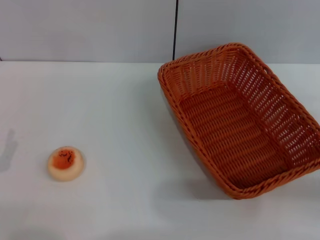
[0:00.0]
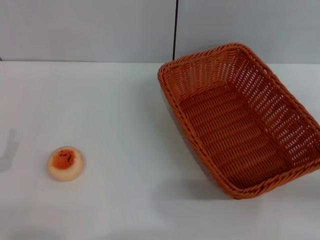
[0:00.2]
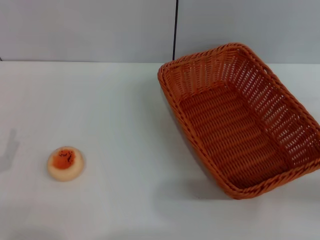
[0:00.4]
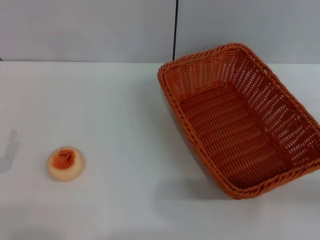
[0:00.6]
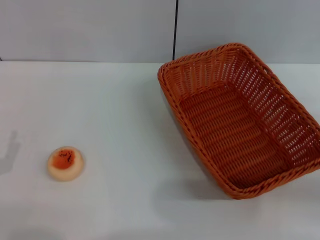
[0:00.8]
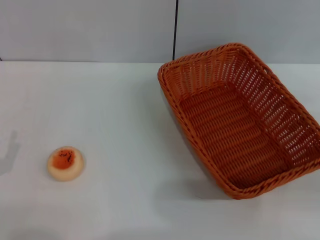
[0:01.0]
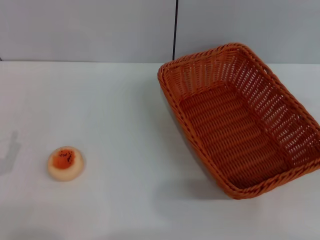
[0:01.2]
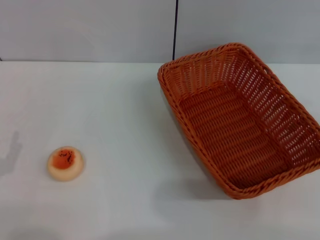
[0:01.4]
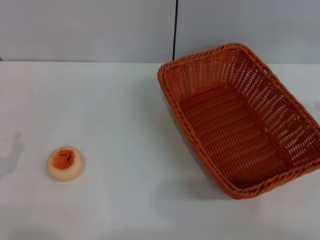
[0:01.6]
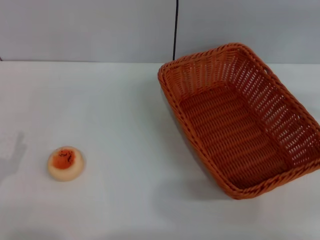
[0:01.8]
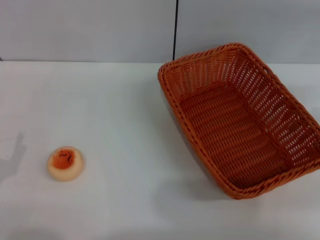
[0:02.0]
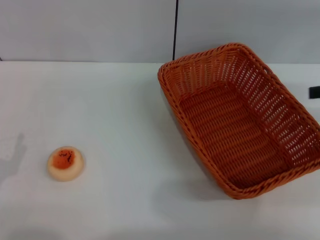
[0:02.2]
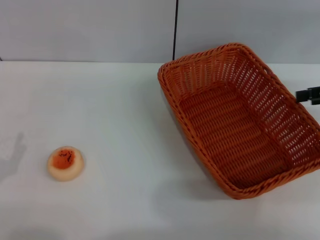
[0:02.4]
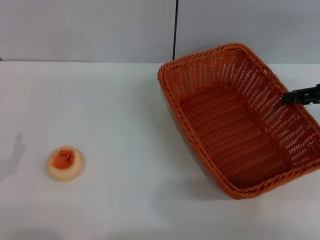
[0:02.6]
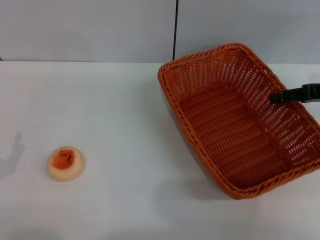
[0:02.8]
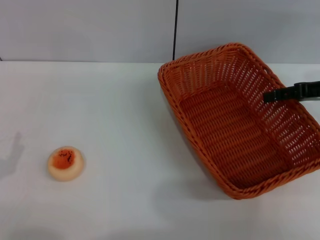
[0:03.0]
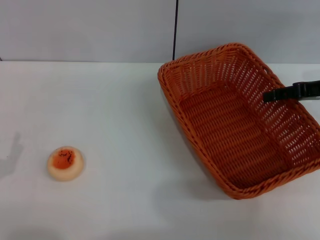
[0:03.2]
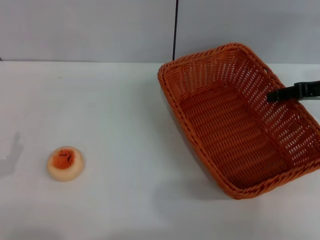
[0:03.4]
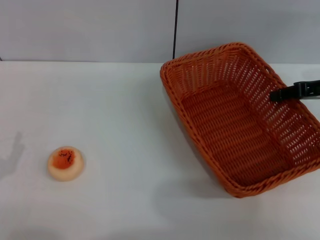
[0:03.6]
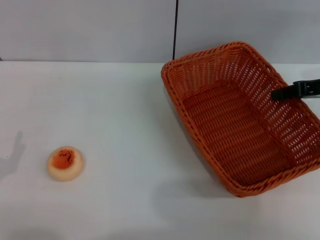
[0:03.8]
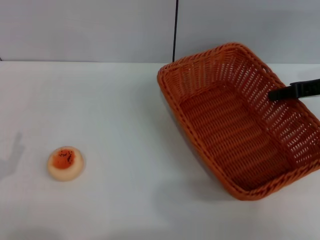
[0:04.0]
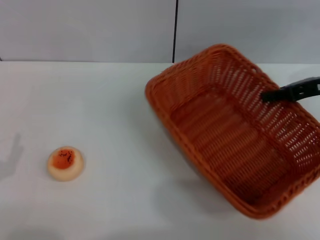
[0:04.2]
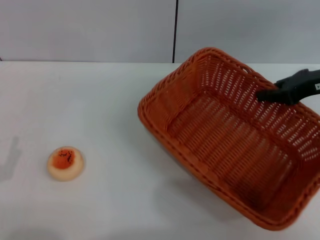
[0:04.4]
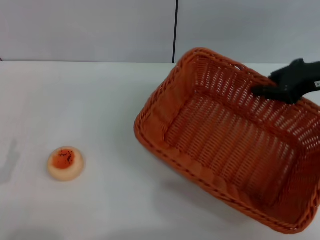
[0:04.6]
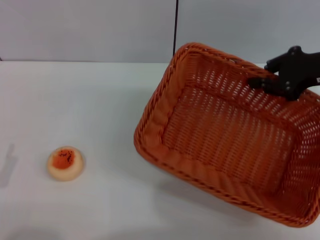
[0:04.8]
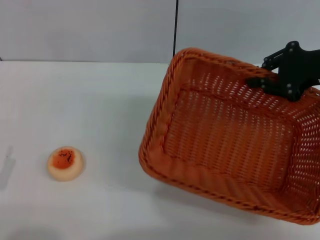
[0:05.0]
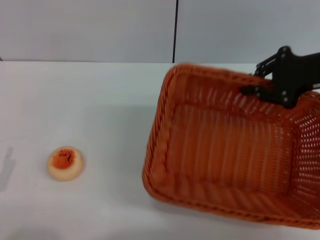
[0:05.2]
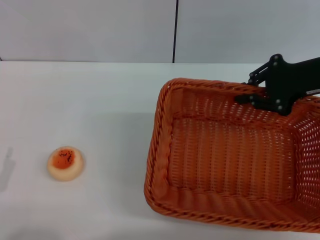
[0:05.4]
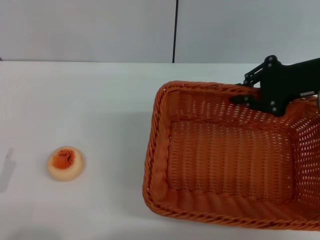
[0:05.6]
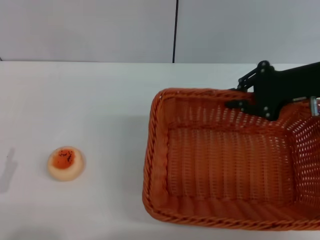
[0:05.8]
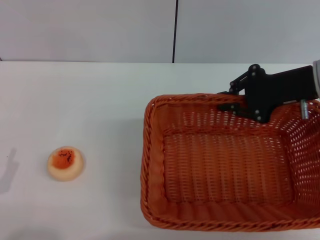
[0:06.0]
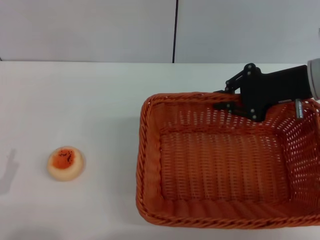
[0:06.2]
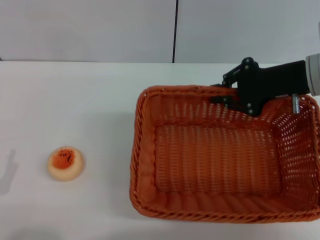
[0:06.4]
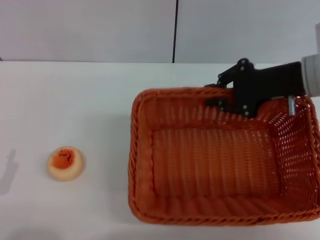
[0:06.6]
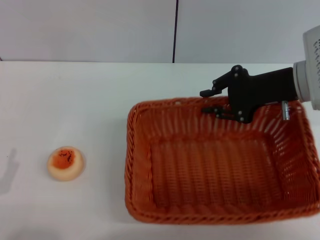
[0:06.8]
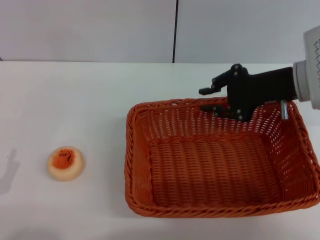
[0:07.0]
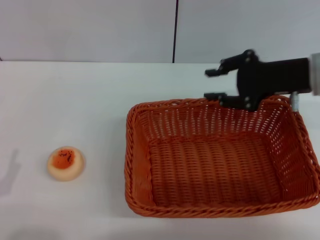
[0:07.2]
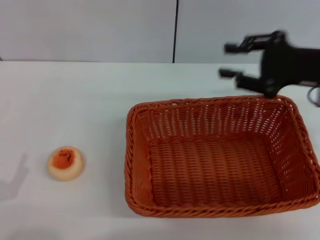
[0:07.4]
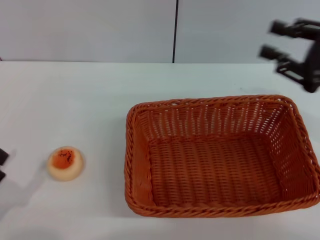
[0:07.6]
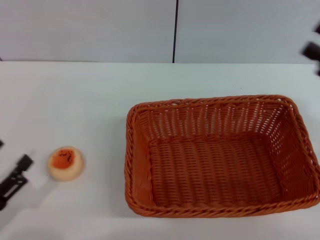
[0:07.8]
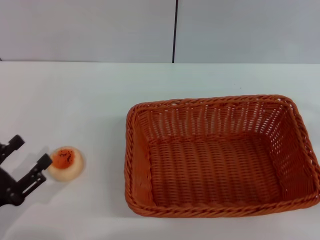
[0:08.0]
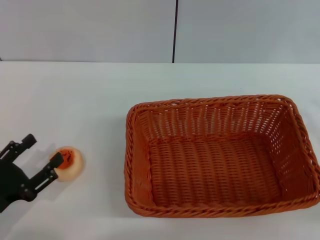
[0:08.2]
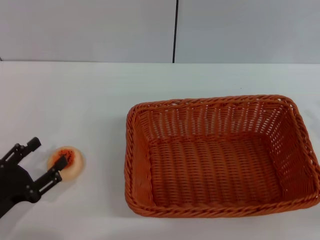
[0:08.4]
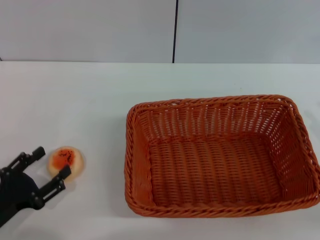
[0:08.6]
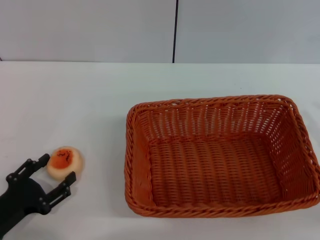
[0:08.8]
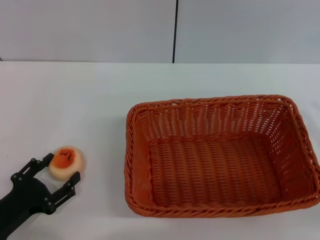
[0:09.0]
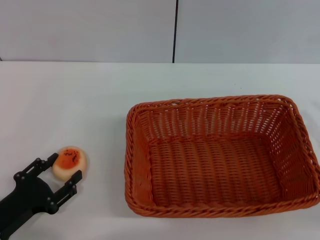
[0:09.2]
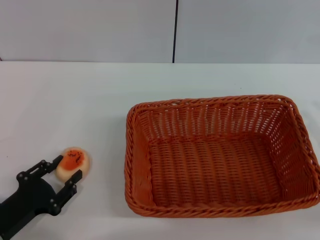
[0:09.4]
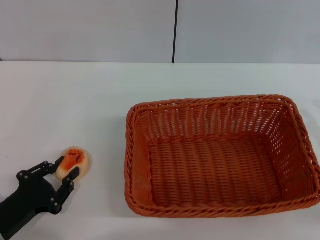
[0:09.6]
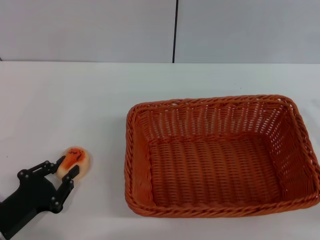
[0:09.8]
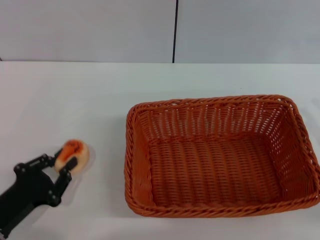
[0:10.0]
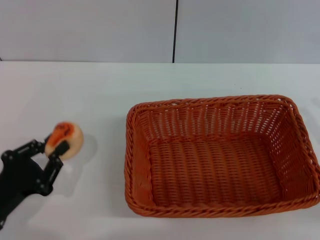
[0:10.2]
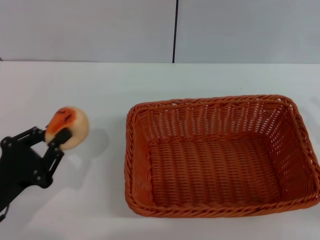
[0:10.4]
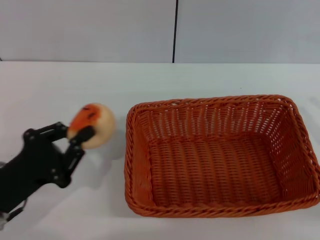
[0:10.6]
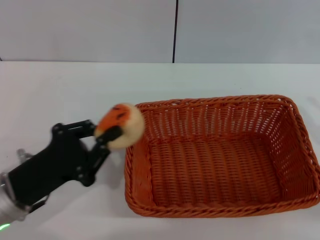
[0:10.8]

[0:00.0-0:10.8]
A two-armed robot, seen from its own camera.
Step, 0:00.0 to 0:07.2: Move the basket to the center of view with the right gripper.
Step, 0:07.4 to 0:10.2: Pick up the egg yolk pastry with the left gripper.
0:01.6 to 0:03.0: The right gripper heads to the left, forward and downward, covering about 15 cm.
0:03.0 to 0:04.6: The right gripper closes its fingers.
0:04.6 to 0:06.2: The right gripper shifts by about 5 cm.
0:06.2 to 0:07.8: The right gripper shifts about 15 cm backward and to the right.
0:07.8 to 0:09.2: The left gripper changes place by about 5 cm; the right gripper changes place by roughly 5 cm.
0:09.2 to 0:10.8: The left gripper moves upward, about 5 cm, and closes.

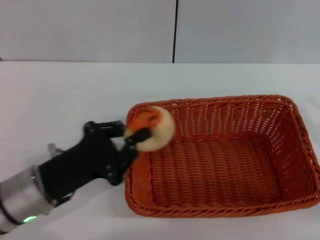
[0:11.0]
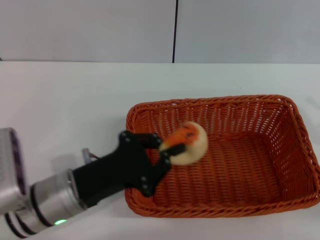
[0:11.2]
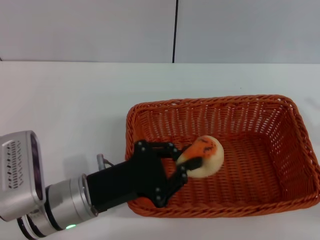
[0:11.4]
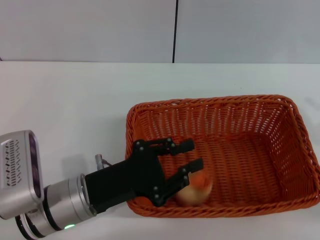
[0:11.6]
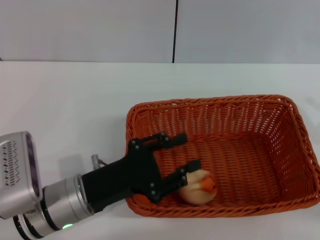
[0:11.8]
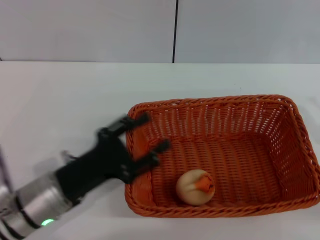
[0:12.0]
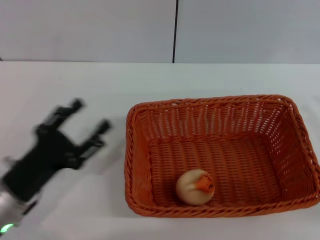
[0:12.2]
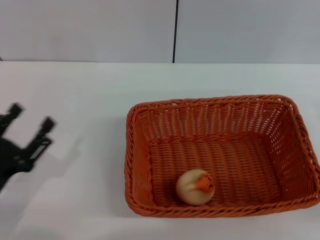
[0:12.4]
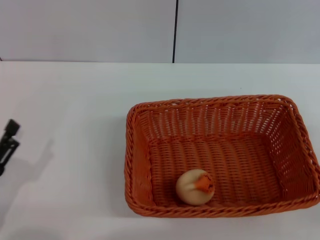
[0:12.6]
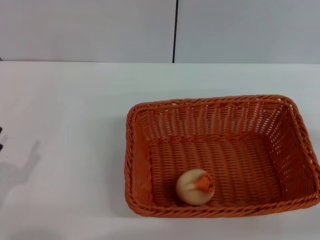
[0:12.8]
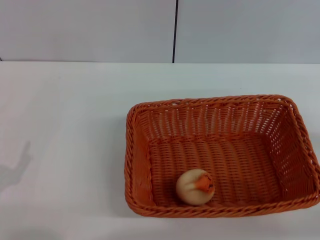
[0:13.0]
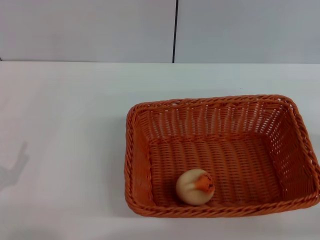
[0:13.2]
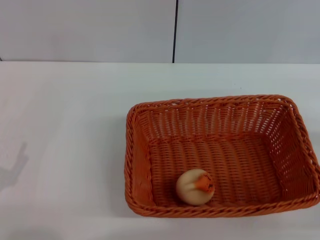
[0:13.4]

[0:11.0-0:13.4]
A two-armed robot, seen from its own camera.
Step, 0:11.0 to 0:11.8: Place the egg yolk pastry into the basket with the left gripper.
0:11.0 to 0:12.2: The left gripper travels to the right and back again, approximately 5 cm each way, and opens up.
0:12.2 to 0:13.4: The left gripper goes some 10 cm to the left and backward.
